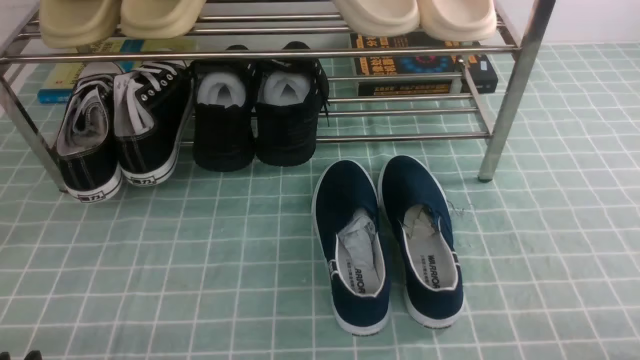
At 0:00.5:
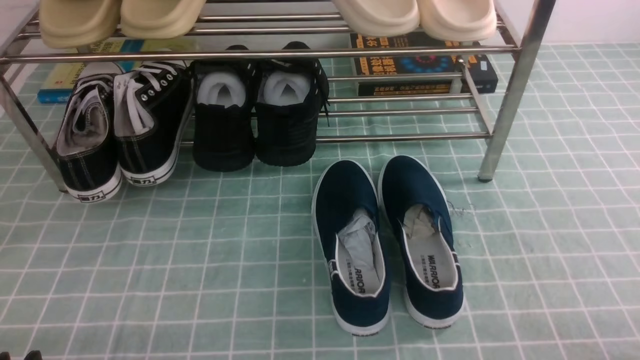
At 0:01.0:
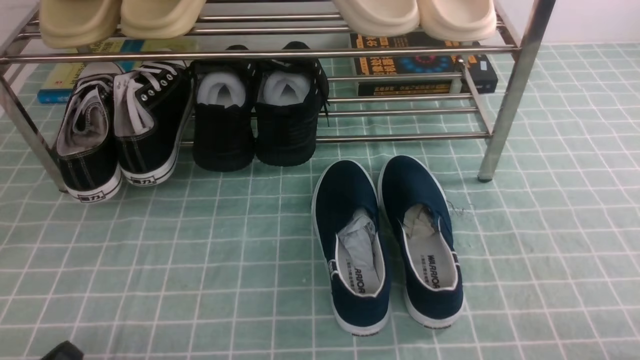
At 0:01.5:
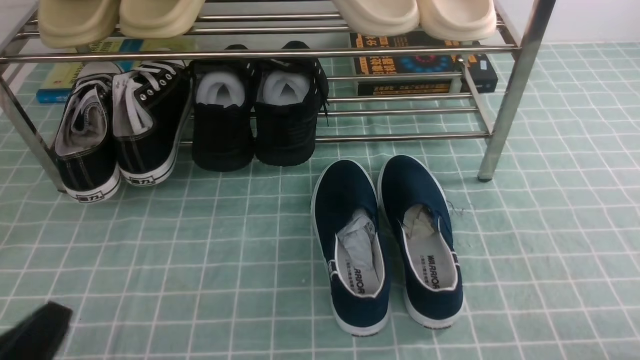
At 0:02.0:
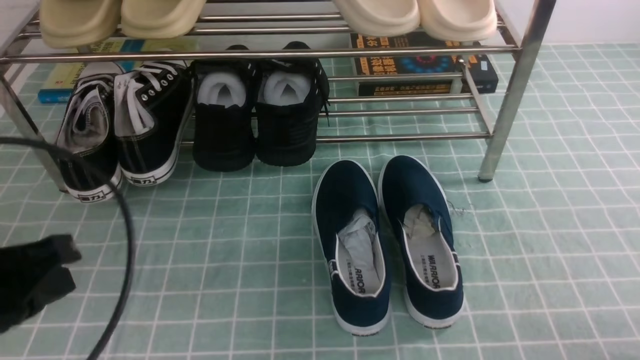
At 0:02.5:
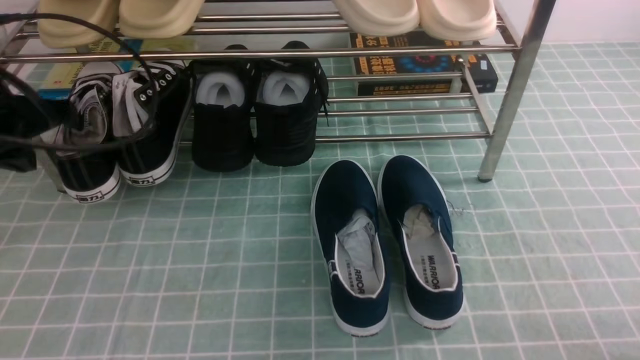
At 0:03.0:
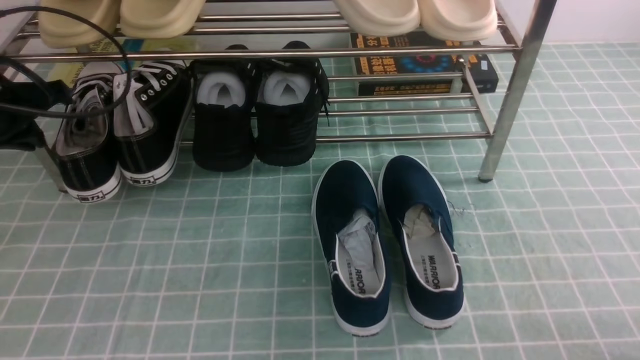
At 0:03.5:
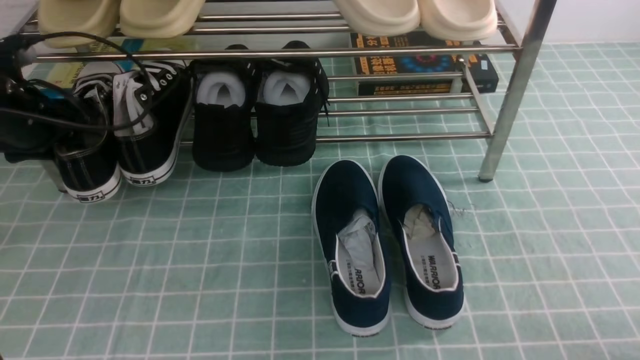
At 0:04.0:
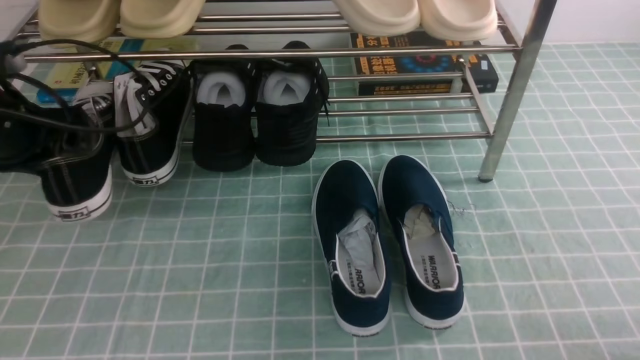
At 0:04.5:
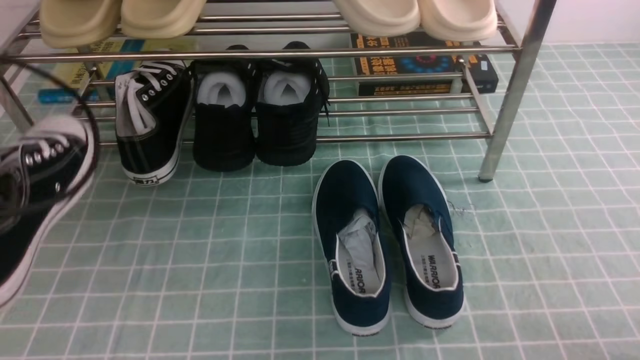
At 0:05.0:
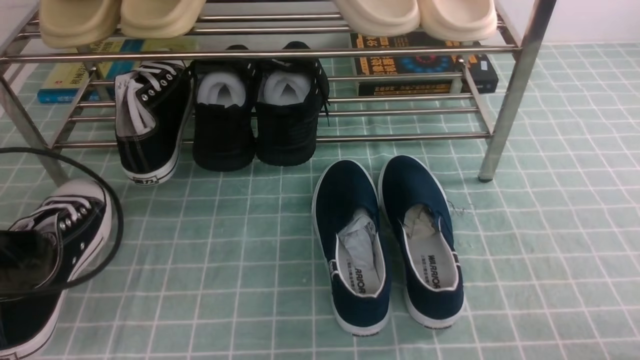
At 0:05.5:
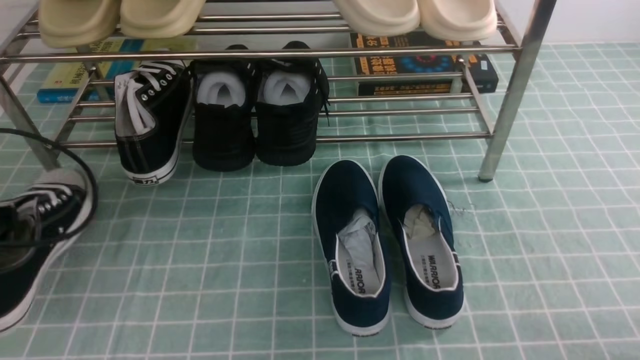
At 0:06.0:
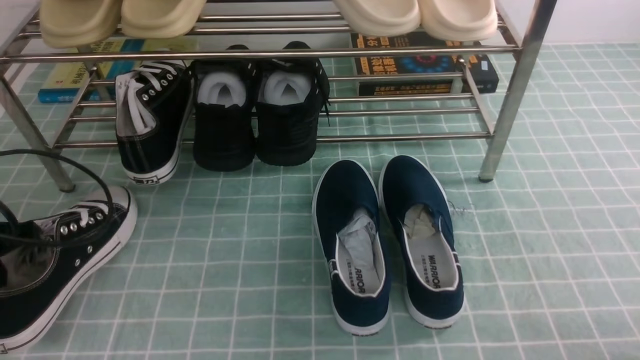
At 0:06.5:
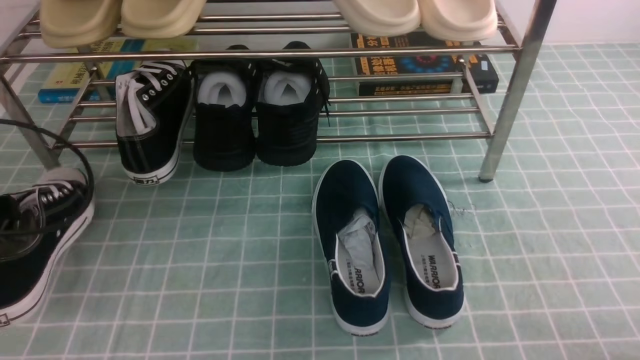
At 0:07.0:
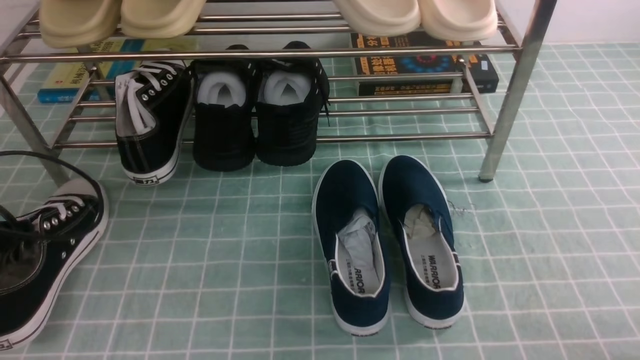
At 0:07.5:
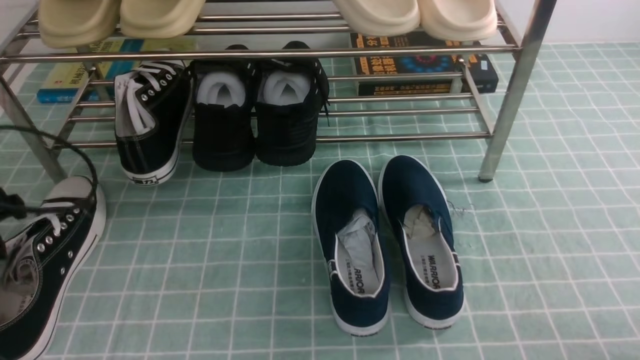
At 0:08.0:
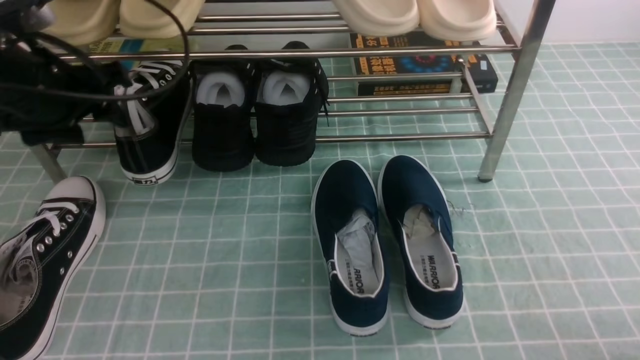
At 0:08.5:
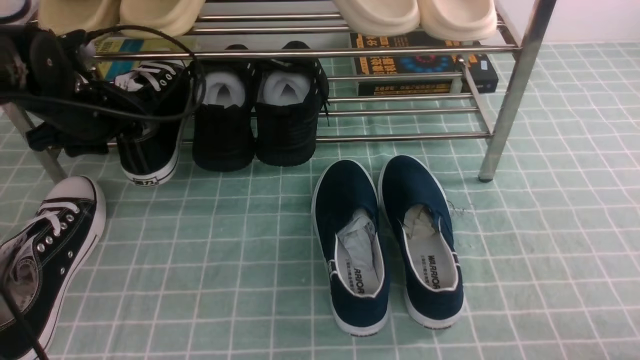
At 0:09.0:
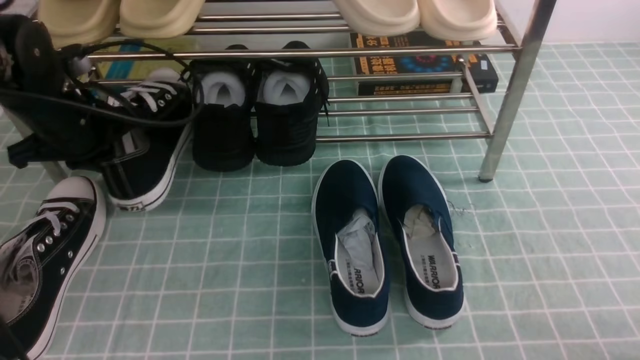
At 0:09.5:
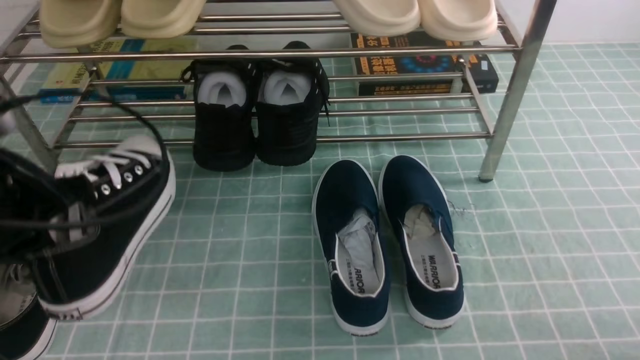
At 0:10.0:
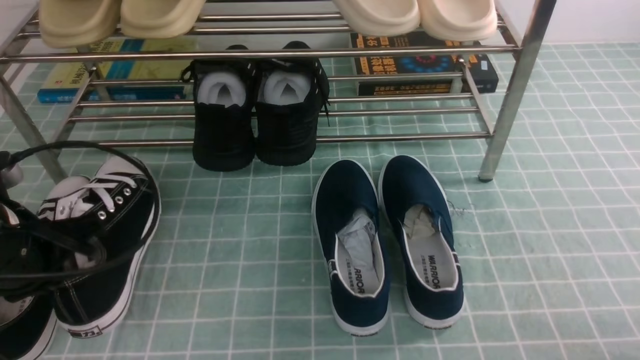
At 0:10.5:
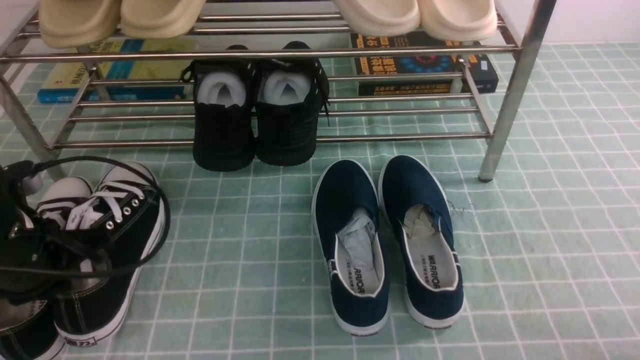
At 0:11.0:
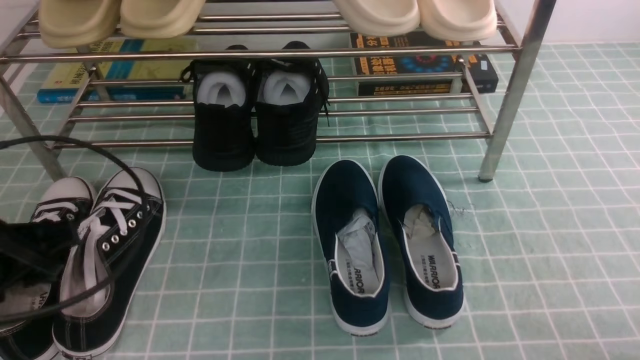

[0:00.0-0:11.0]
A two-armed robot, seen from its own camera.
Step, 0:00.0 to 0:03.5: use the left arm to clamp a shoe on the left side of the shoe rack.
Step, 0:04.0 to 0:07.5: Use your left arm to remove the clamped shoe from the shoe rack and put it down.
Step, 0:08.0 to 0:08.5: use the left arm to clamp a shoe on the left side of the shoe rack.
0:00.0 to 0:02.0: The left gripper shifts approximately 15 cm upward and forward, and closes up.
0:02.0 to 0:03.5: The left gripper moves forward, about 25 cm, and opens.
0:03.5 to 0:05.5: The left gripper travels backward by roughly 15 cm, and closes up.
0:05.5 to 0:07.5: The left gripper opens its fingers.
0:07.5 to 0:09.0: The left gripper goes about 10 cm to the right and forward, and closes up.
0:09.0 to 0:11.0: The left gripper moves backward, about 15 cm, and opens up.

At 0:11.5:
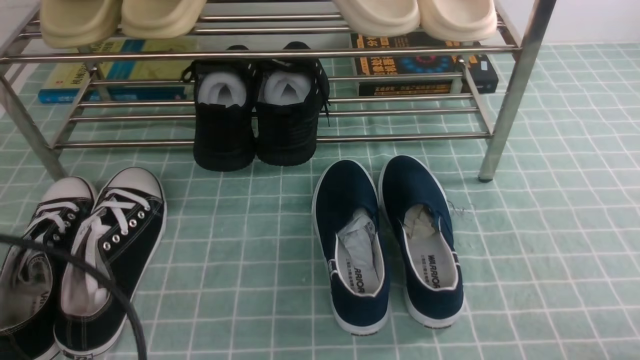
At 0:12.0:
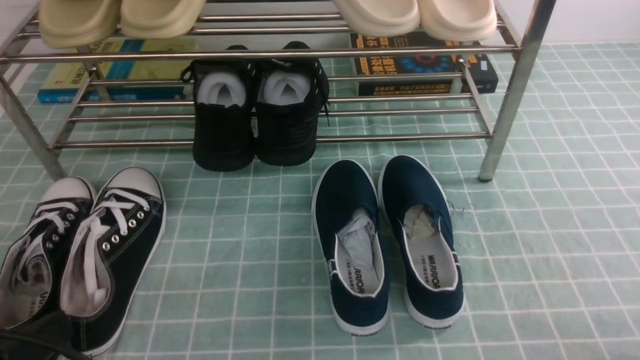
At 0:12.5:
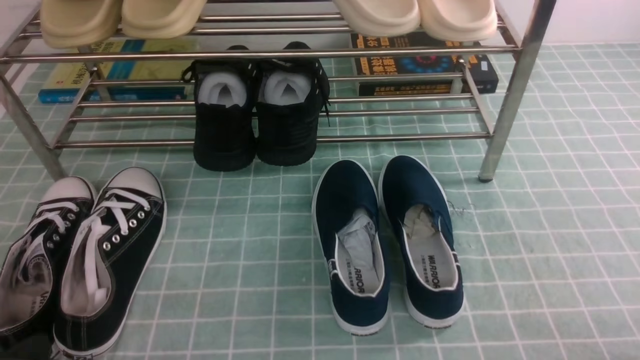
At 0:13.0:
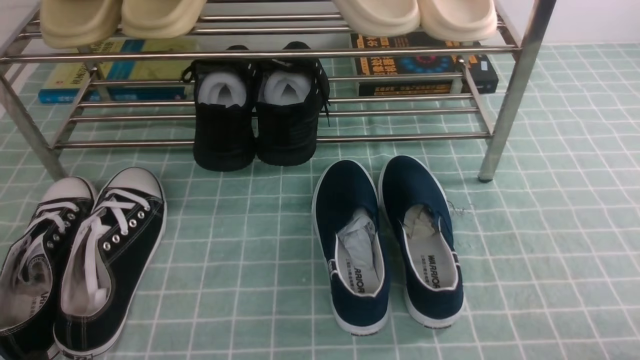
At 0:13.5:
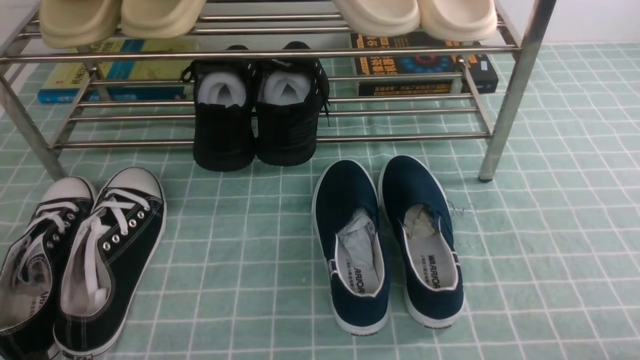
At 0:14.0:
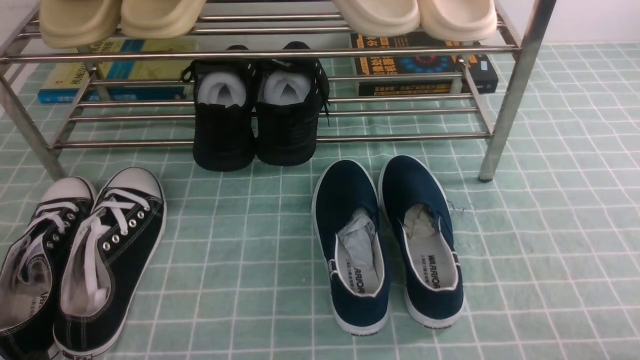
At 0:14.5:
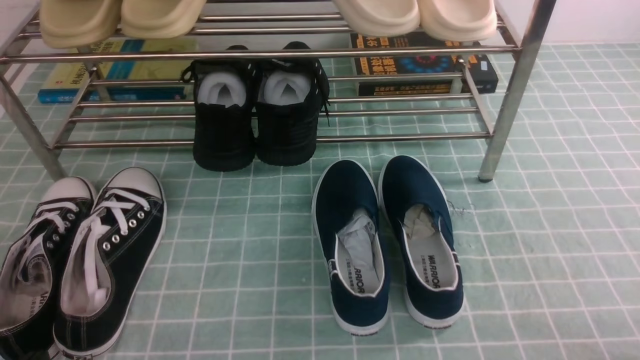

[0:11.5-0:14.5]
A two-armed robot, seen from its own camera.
0:11.5 to 0:13.0: The left gripper shifts approximately 10 cm downward.
0:13.0 to 0:14.5: Both grippers stay put.
